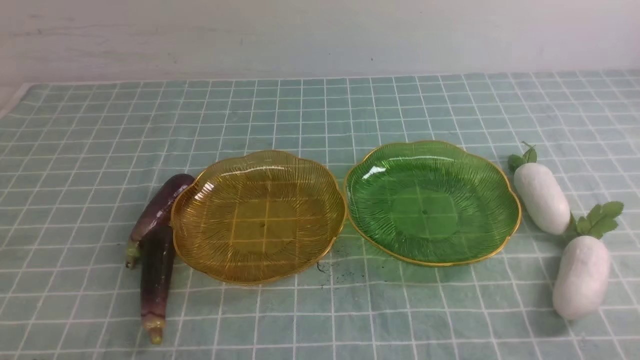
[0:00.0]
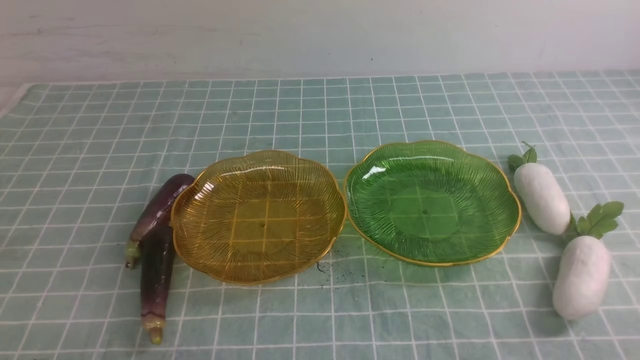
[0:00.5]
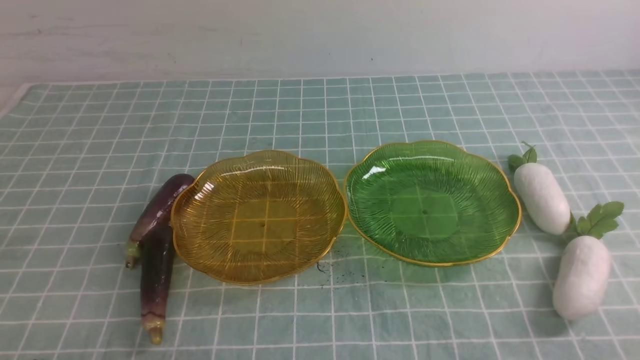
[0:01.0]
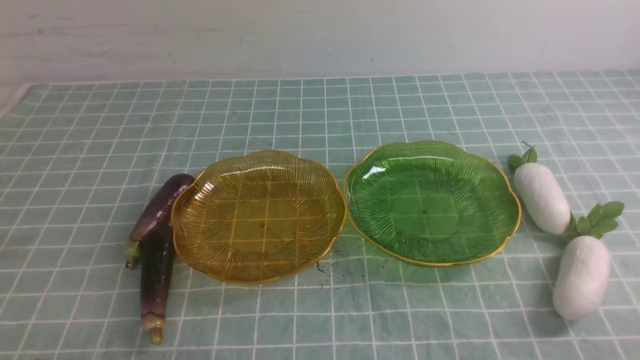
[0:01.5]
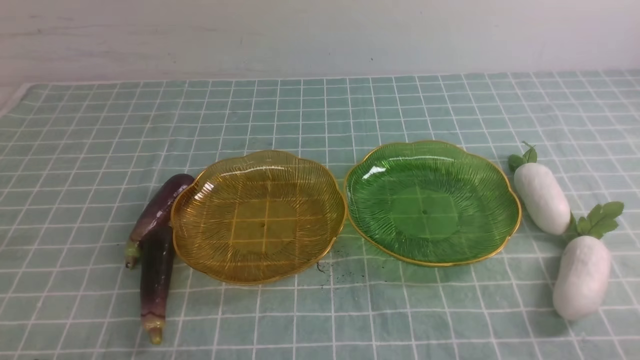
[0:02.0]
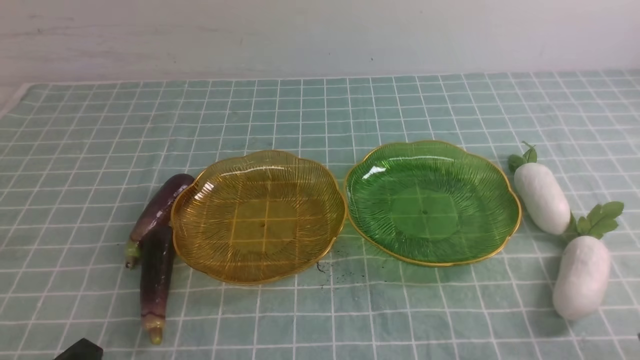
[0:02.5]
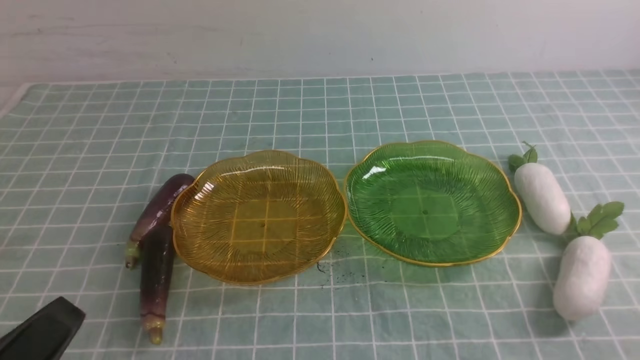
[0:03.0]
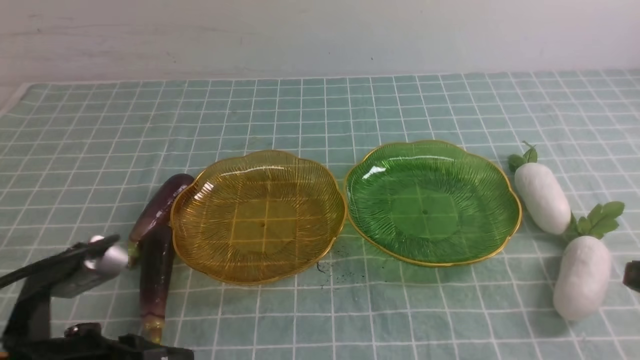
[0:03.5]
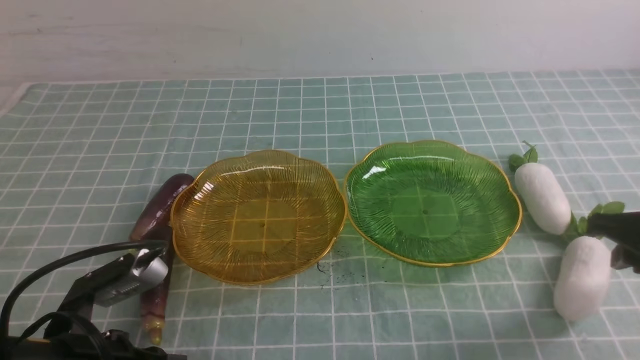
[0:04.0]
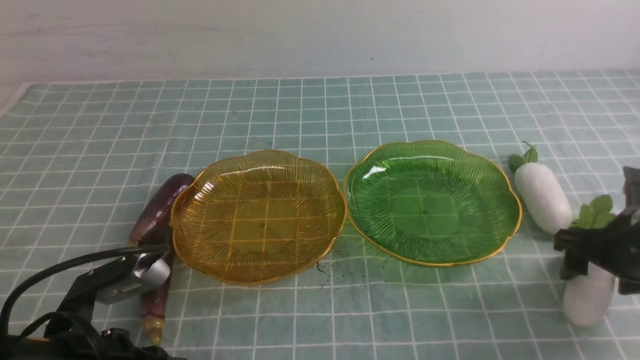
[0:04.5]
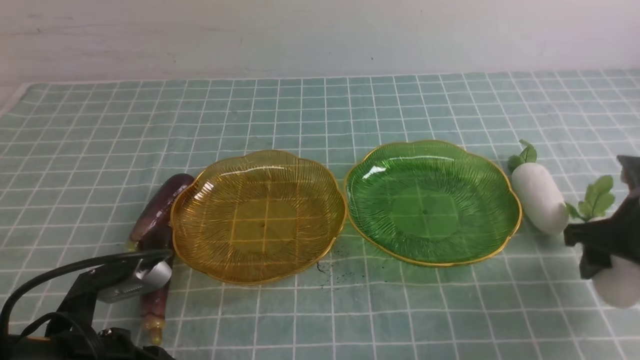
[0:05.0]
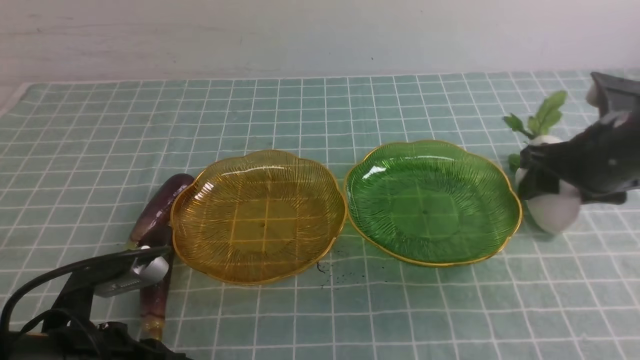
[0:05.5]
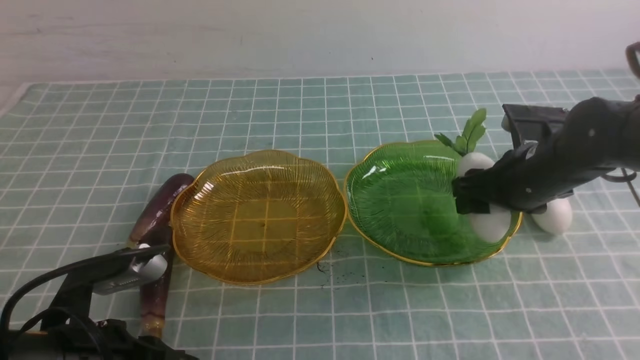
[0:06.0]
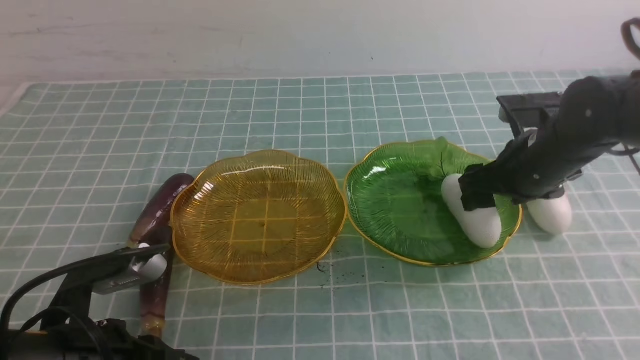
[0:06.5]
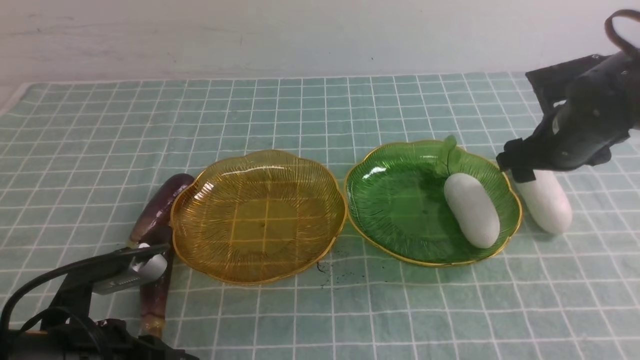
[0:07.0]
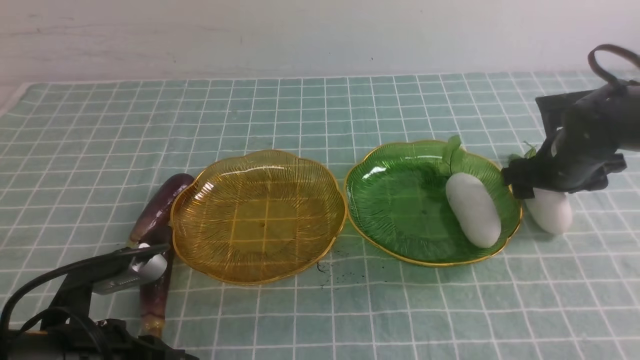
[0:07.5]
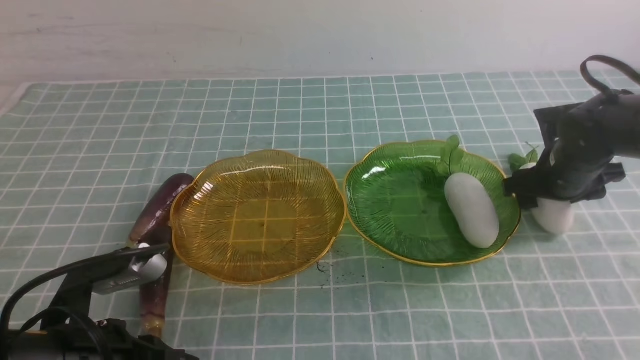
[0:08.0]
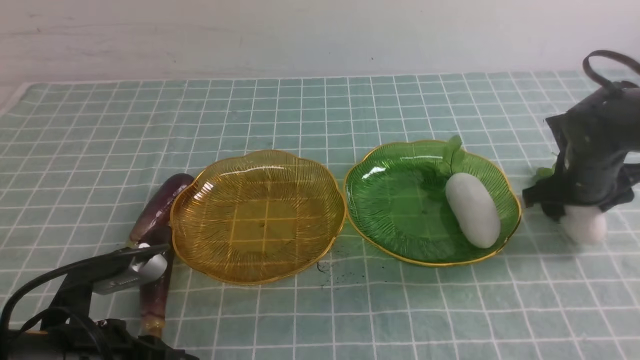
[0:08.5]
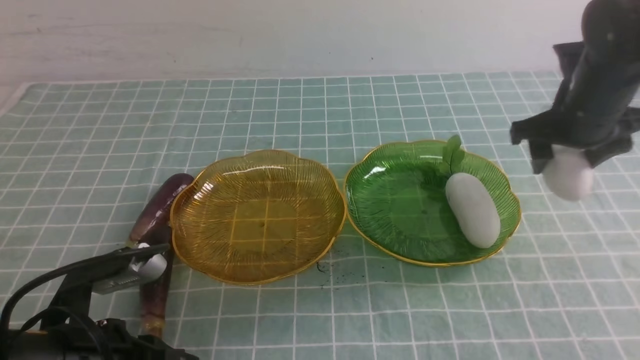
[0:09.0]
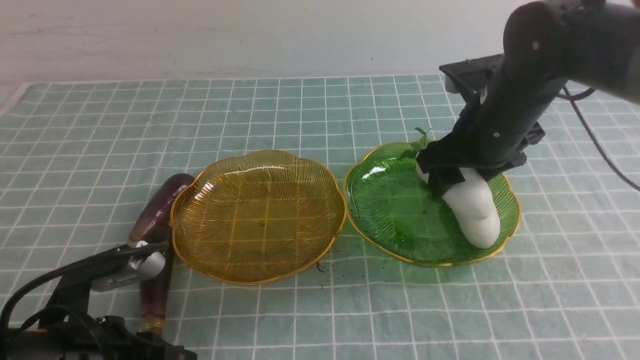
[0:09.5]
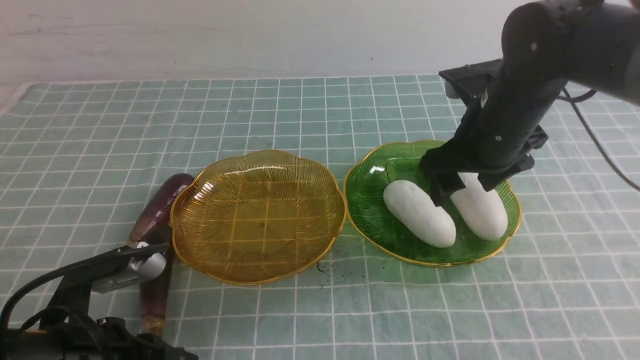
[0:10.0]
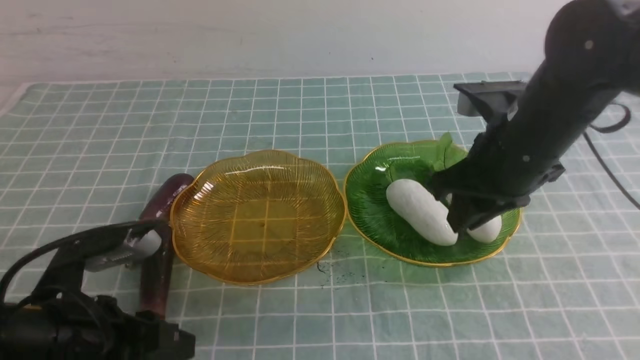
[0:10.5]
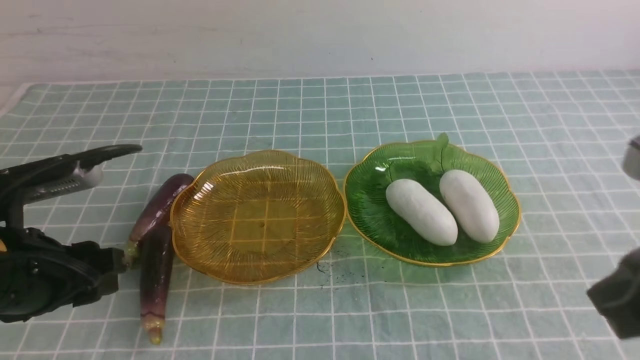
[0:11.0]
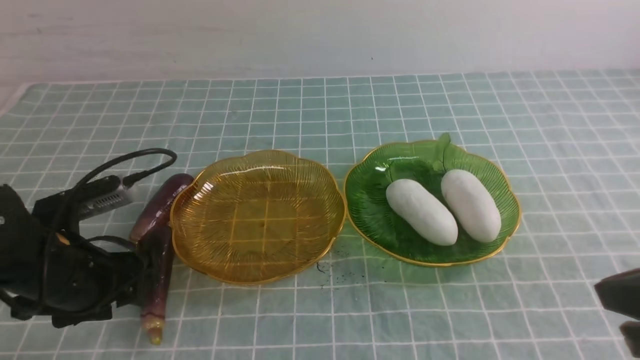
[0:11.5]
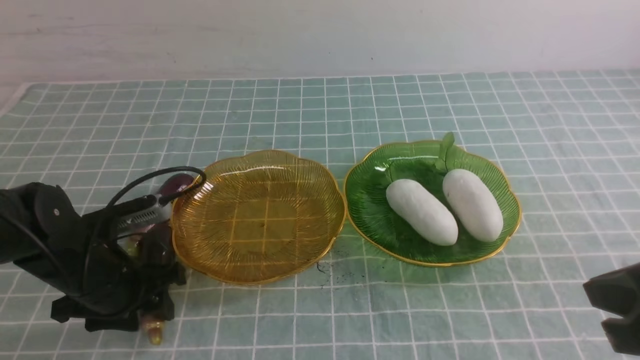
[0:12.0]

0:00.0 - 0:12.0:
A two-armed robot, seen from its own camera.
Step, 0:00.0 - 0:09.5: use the right arm to grab a radish and put it into the right plate.
0:00.0 - 0:02.0: Both grippers stay put.
0:02.0 - 0:04.0: The right gripper shifts roughly 20 cm forward, and opens up. The left gripper travels forward and to the right by some 10 cm.
0:04.0 - 0:06.0: The right gripper goes some 15 cm forward and to the left, and opens.
0:06.0 - 0:08.0: The right gripper shifts some 5 cm to the right.
0:08.0 - 0:10.0: The right gripper heads to the left and upward, covering roughly 15 cm.
0:10.0 - 0:12.0: The left gripper heads forward, covering some 10 cm, and opens. Meanwhile the right gripper goes roughly 25 cm backward, and closes.

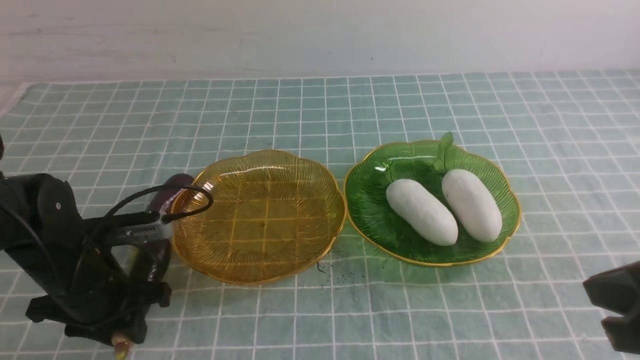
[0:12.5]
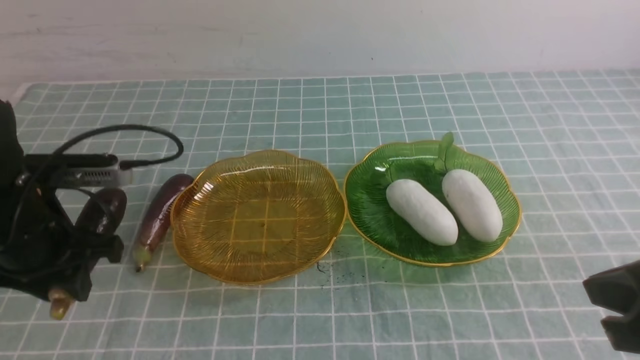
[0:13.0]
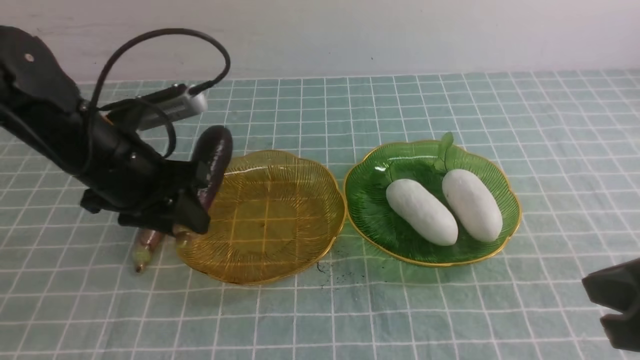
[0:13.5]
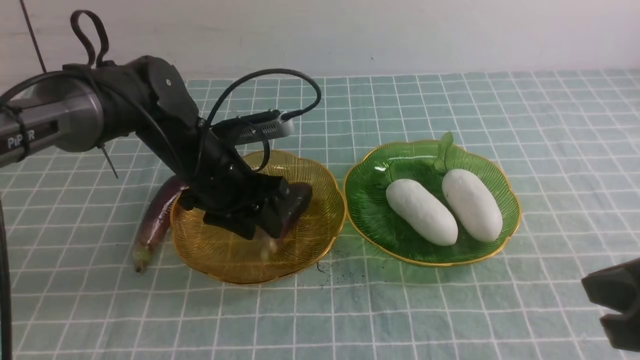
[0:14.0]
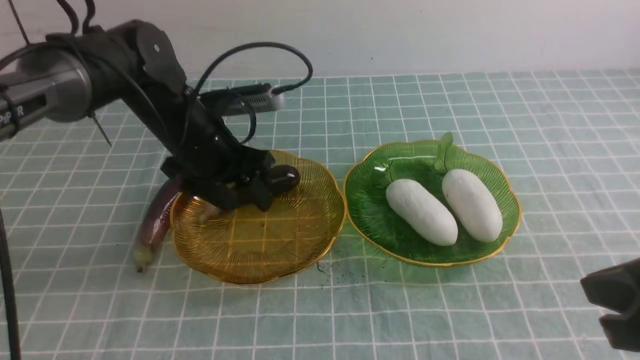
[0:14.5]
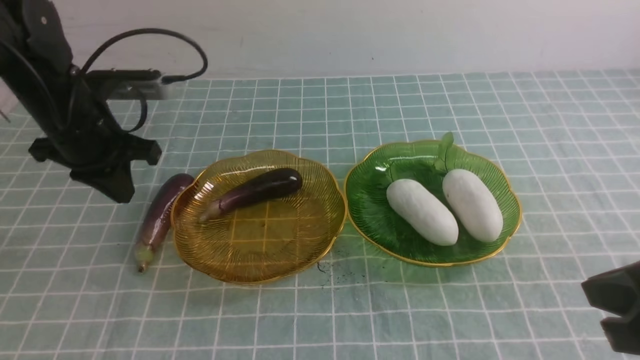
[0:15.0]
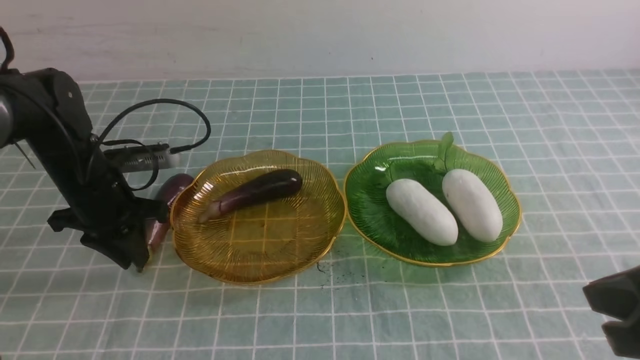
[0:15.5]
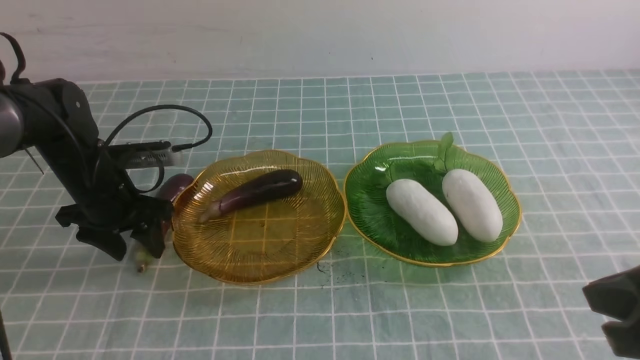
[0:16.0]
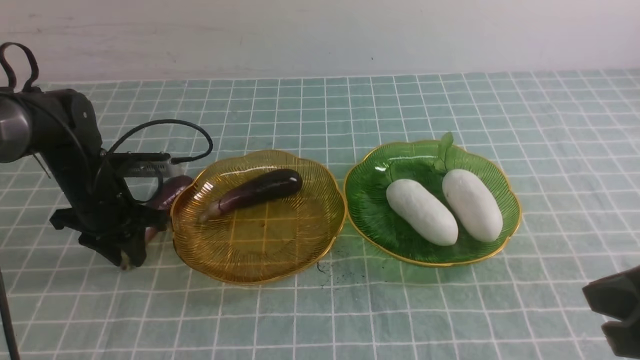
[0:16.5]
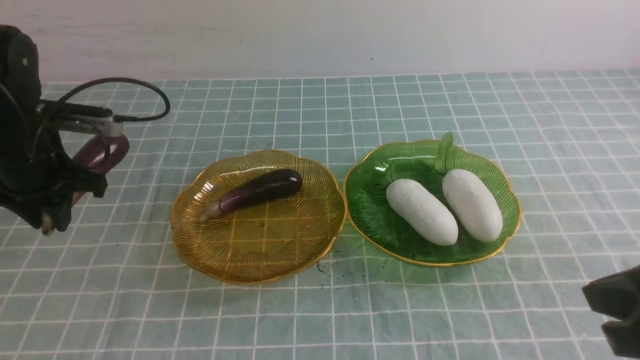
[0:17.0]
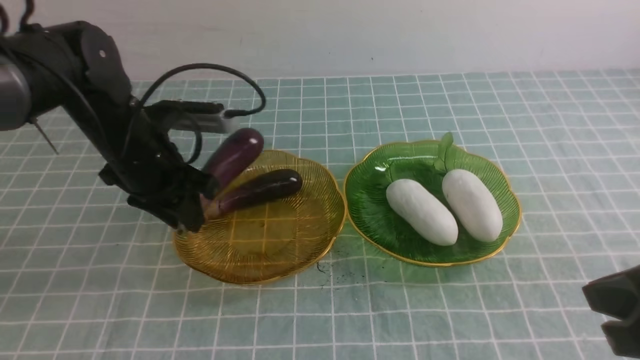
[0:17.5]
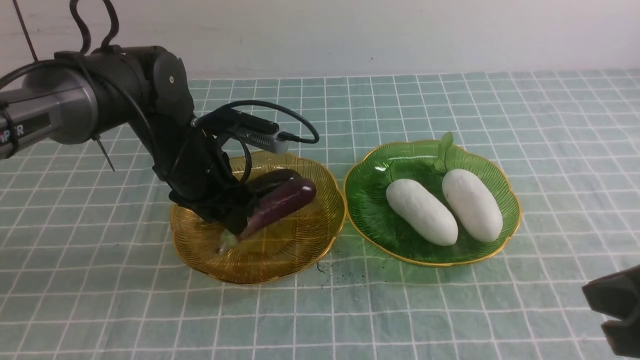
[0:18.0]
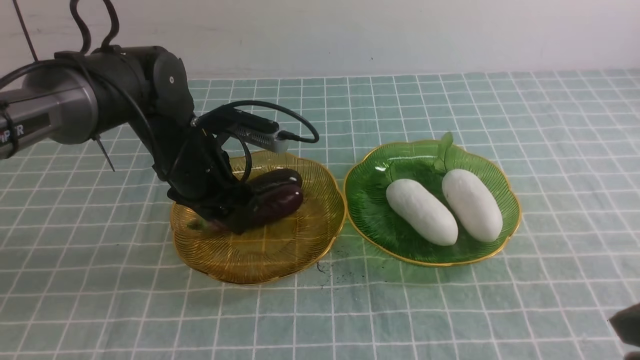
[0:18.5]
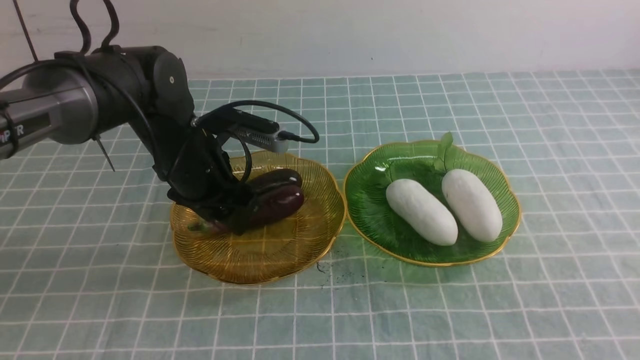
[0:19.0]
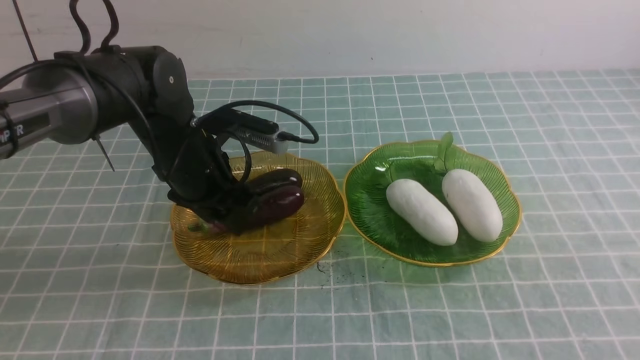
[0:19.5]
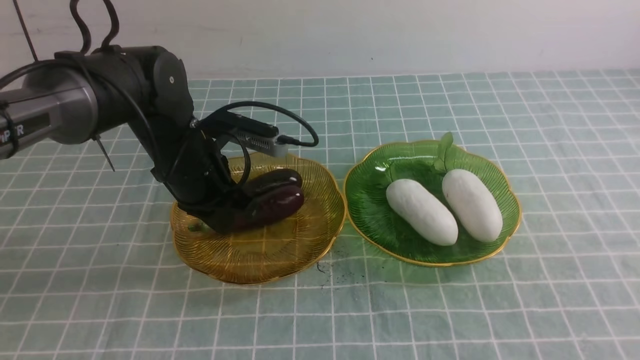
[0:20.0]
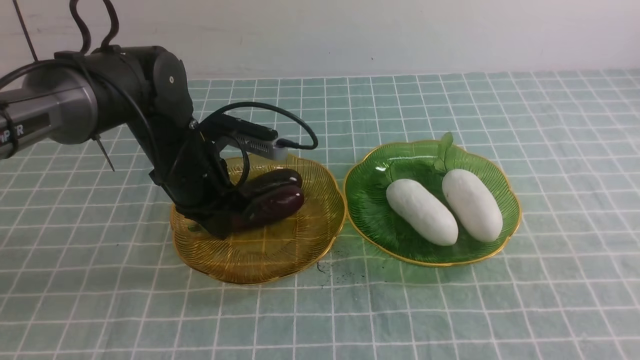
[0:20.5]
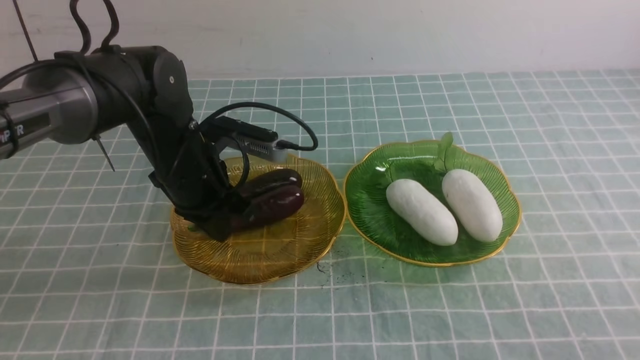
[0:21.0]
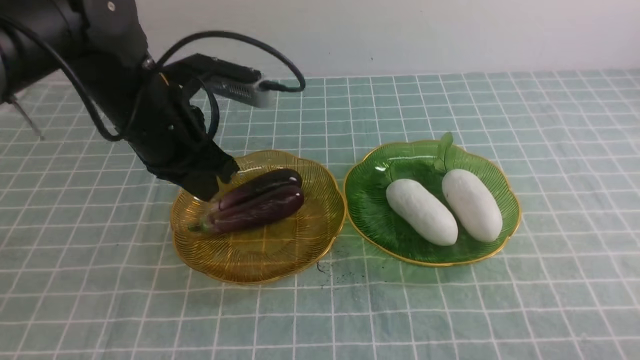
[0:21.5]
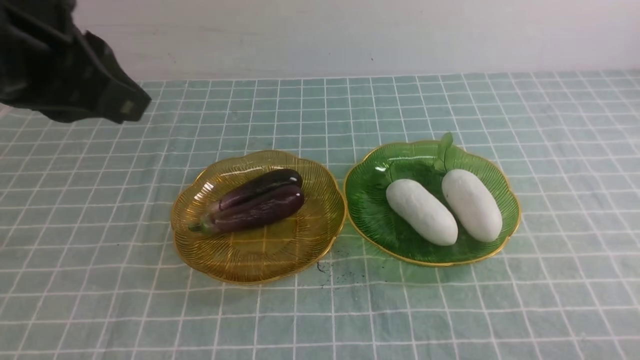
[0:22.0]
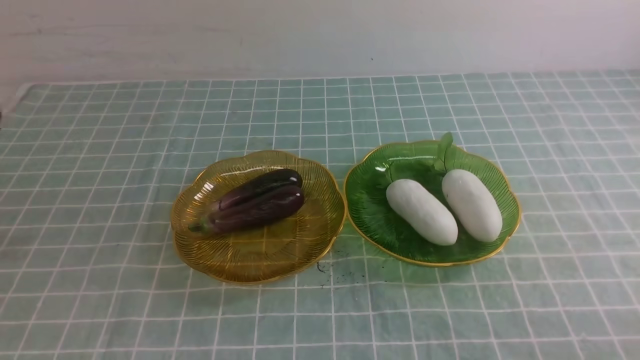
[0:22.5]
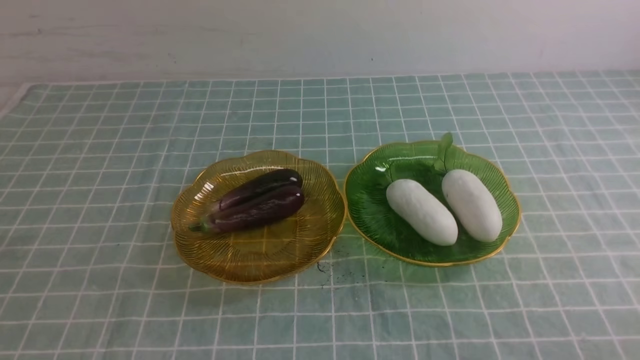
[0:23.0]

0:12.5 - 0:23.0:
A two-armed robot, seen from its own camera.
Step, 0:12.5 - 0:18.0: use the left arm to grab an eggplant and put it into the left plate.
0:12.5 - 0:14.5: The left gripper moves forward, to the right and upward, roughly 15 cm, and opens up.
0:14.5 - 0:16.5: The left gripper travels to the left and downward by about 15 cm, and closes up.
0:16.5 - 0:19.0: The left gripper heads to the right and upward, covering roughly 15 cm, and opens its fingers, while the right gripper shifts some 10 cm backward.
0:19.0 - 0:21.0: The left gripper closes; the right gripper moves downward, about 10 cm.
0:21.0 - 0:23.0: The left gripper moves backward, roughly 35 cm.
